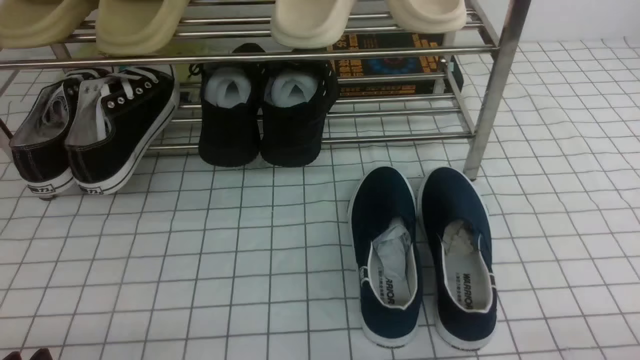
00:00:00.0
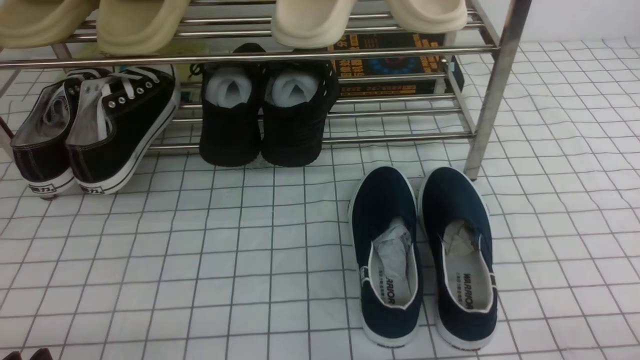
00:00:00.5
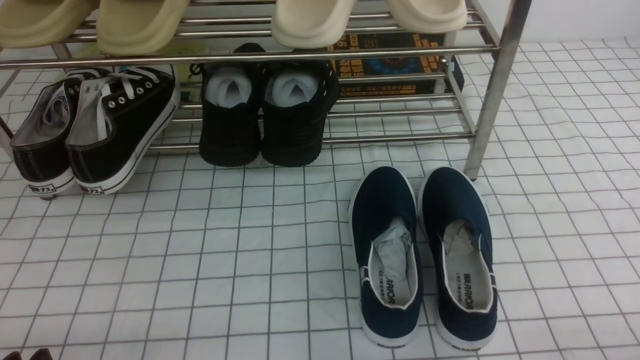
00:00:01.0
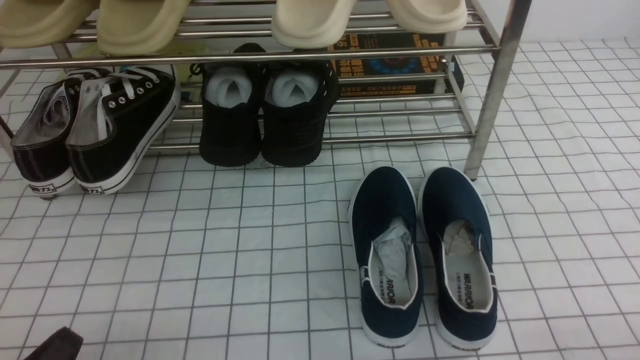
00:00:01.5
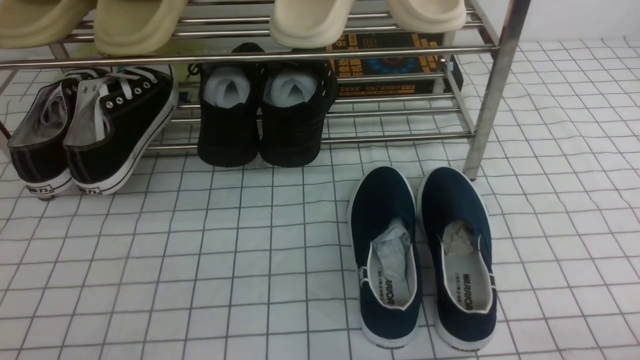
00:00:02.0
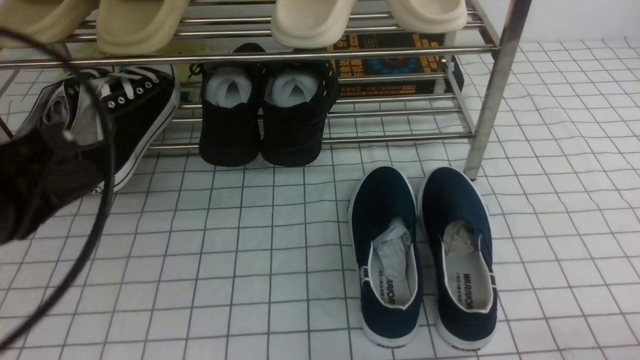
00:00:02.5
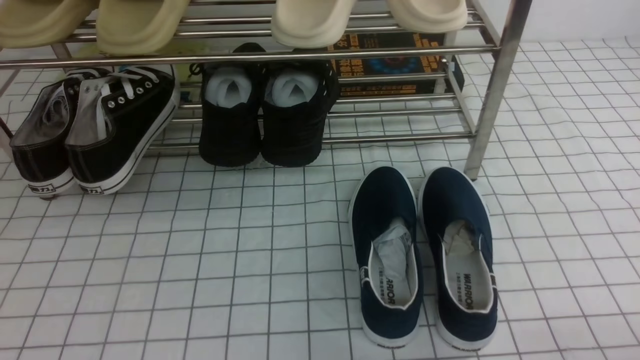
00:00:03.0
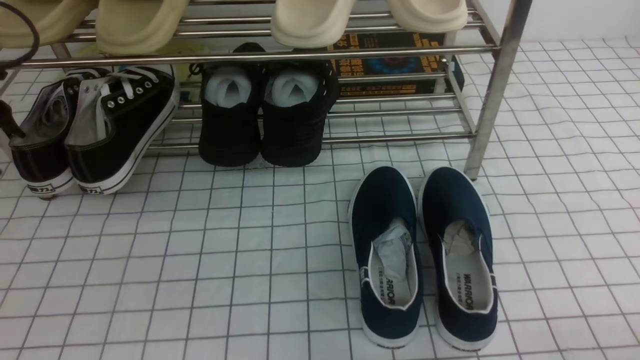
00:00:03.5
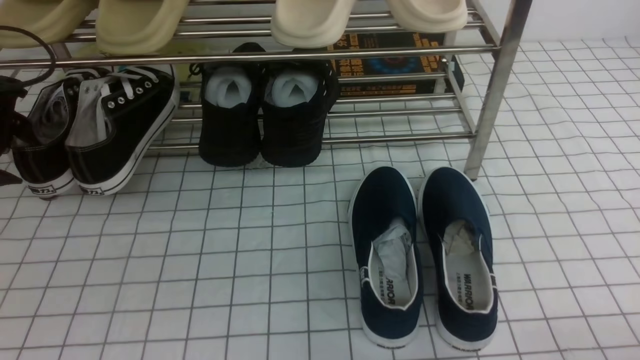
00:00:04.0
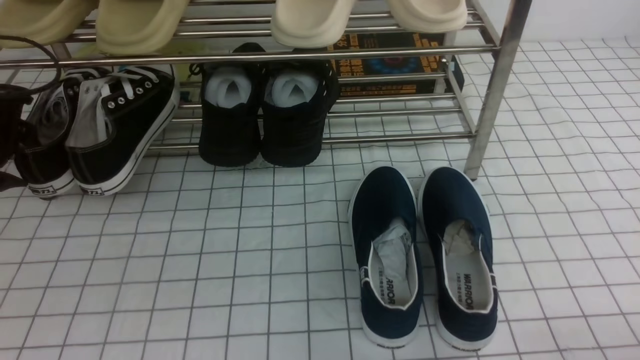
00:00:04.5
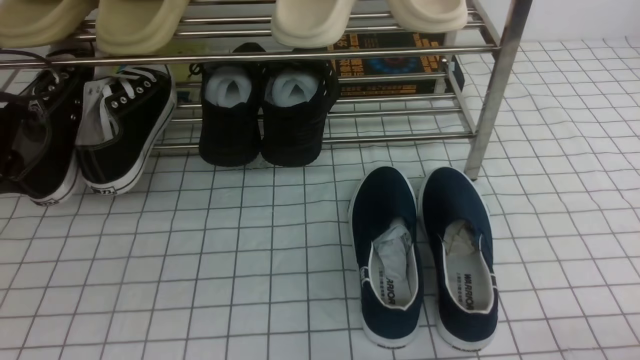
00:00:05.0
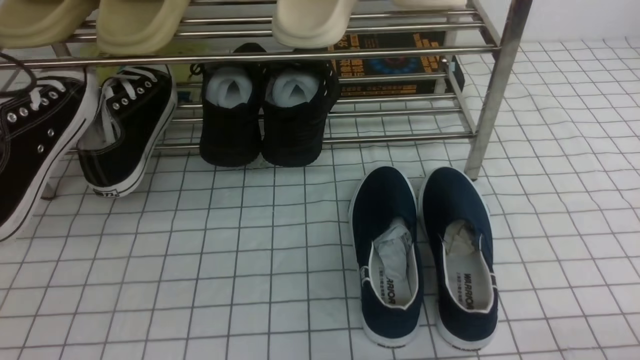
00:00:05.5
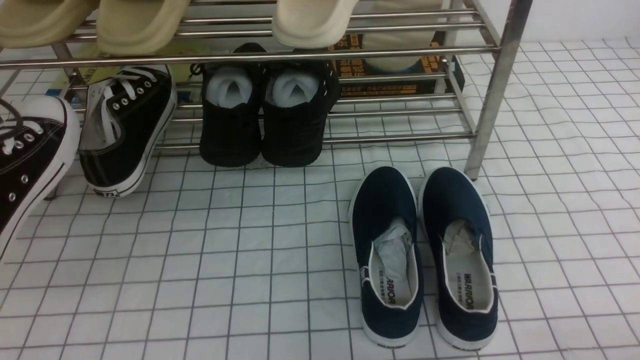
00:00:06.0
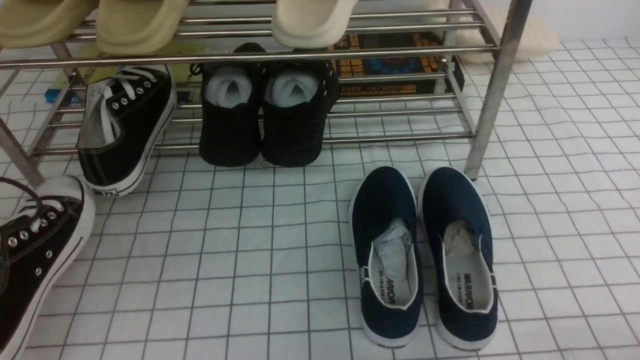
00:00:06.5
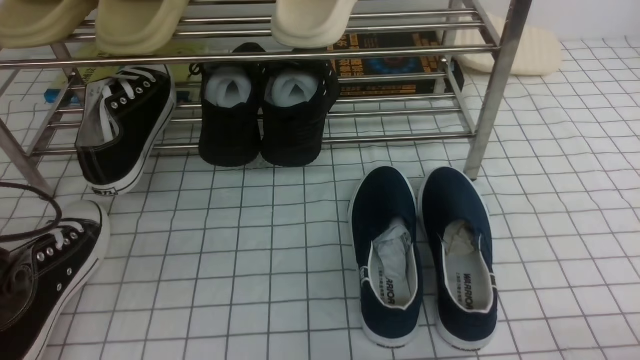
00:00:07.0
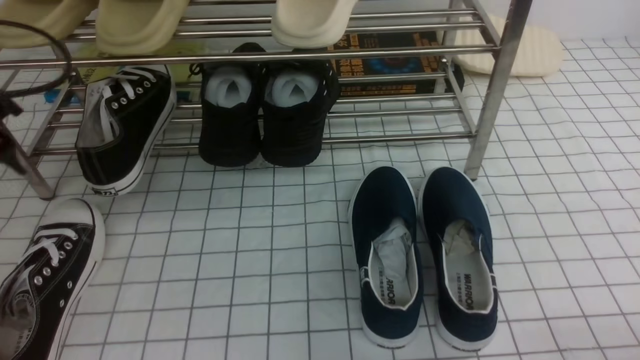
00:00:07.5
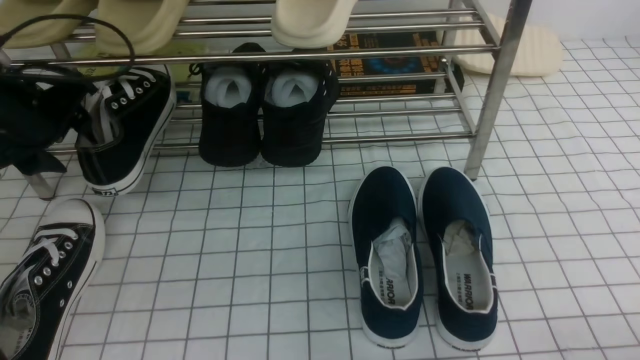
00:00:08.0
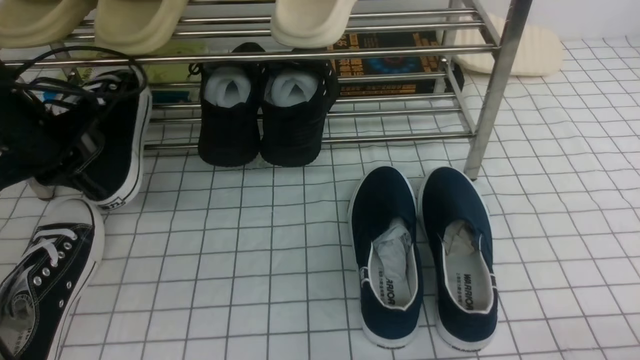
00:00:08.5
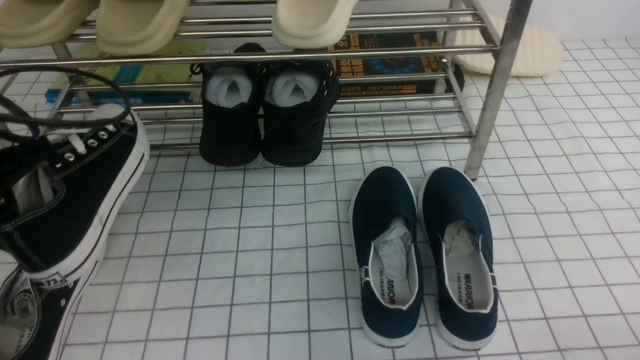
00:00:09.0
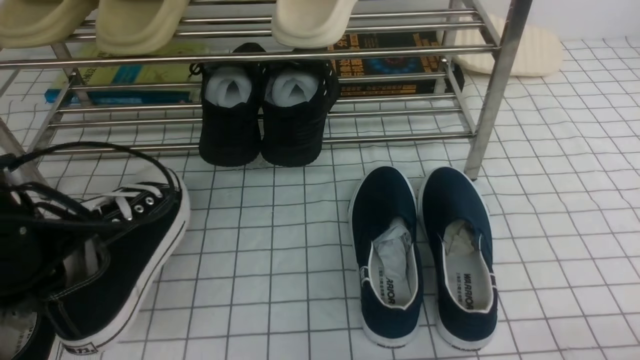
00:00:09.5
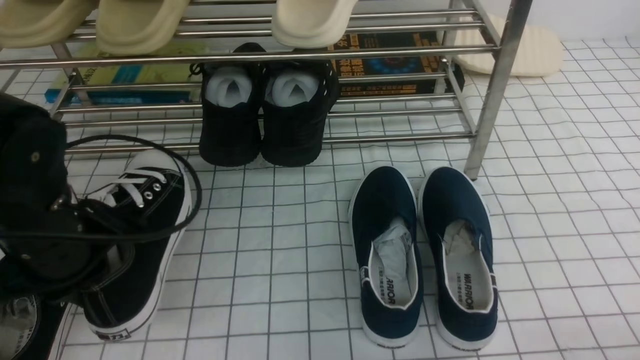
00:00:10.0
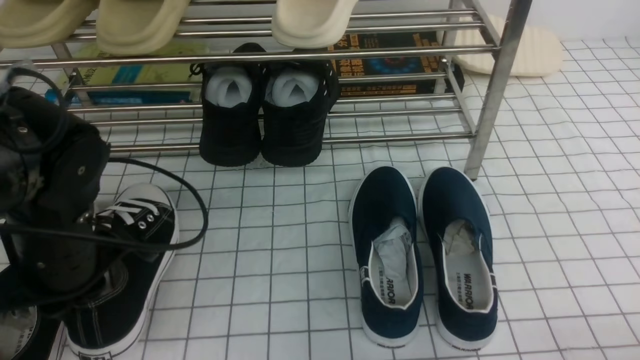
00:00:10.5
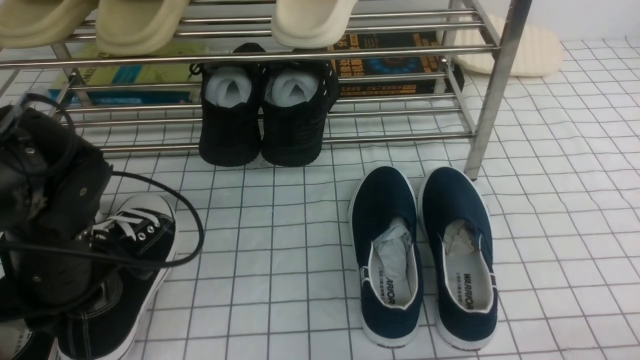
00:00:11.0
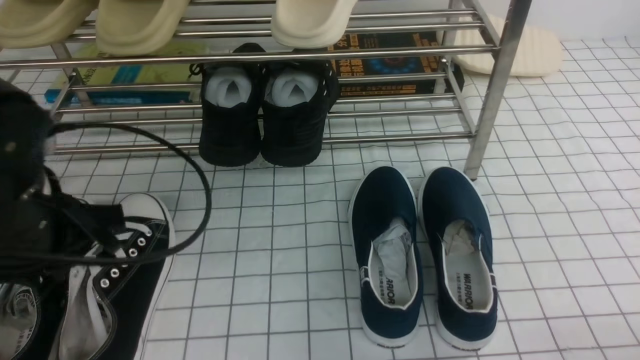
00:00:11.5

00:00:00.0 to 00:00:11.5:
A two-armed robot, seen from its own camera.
Step, 00:00:00.0 to 00:00:04.5: use the left arm to clamp a shoe on the left side of the shoe rack.
Step, 00:00:05.0 to 00:00:07.0: Use your left arm to remove the clamped shoe from the shoe rack and put it down.
Step, 00:00:07.5 to 00:00:08.0: use the left arm to clamp a shoe on the left side of the shoe rack.
00:00:02.0 to 00:00:04.0: The left gripper is displaced forward by some 30 cm, and opens.
00:00:04.0 to 00:00:06.0: The left gripper shifts roughly 15 cm backward, and closes up.
00:00:06.0 to 00:00:07.5: The left gripper heads forward, covering about 10 cm, and opens.
00:00:07.5 to 00:00:09.5: The left gripper moves to the right and backward, some 10 cm, and closes its fingers.
00:00:09.5 to 00:00:11.5: The left gripper shifts by about 5 cm.

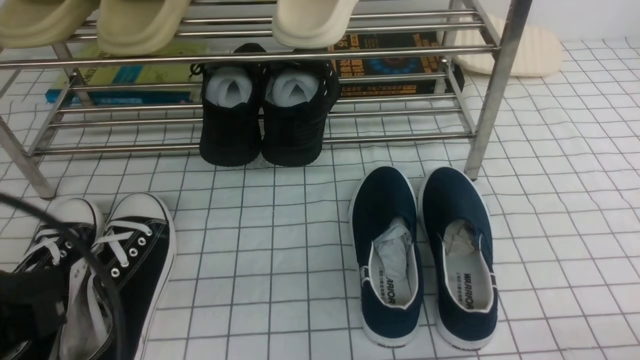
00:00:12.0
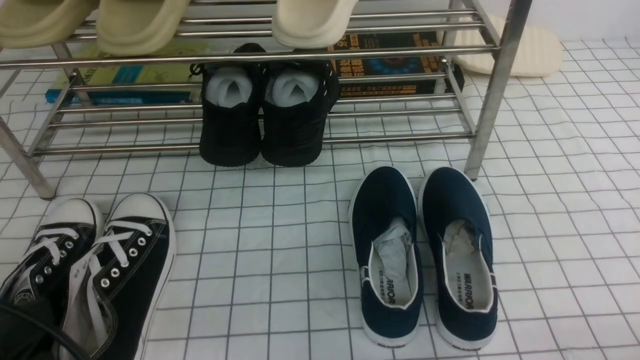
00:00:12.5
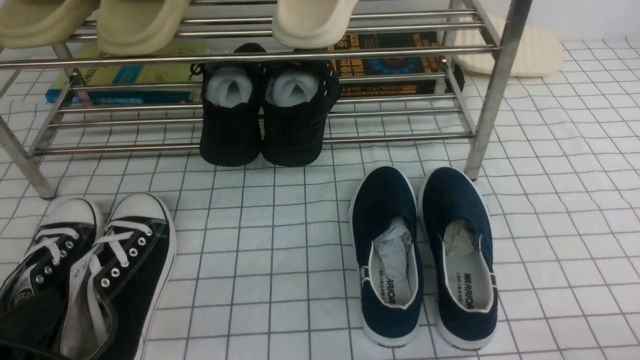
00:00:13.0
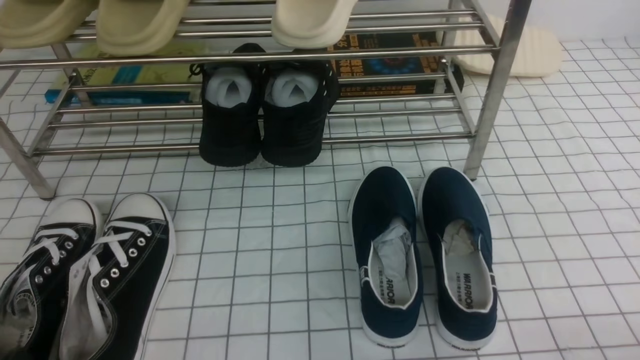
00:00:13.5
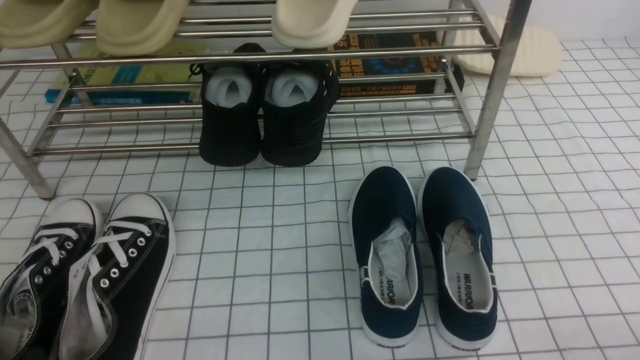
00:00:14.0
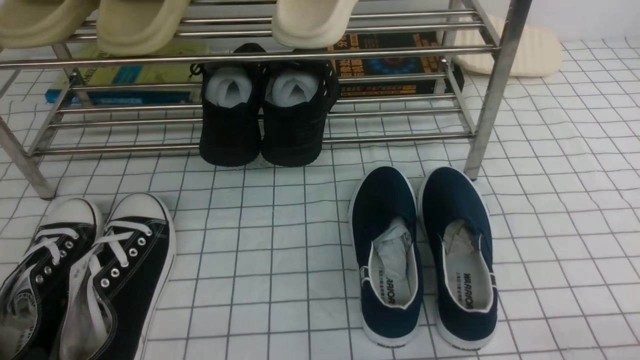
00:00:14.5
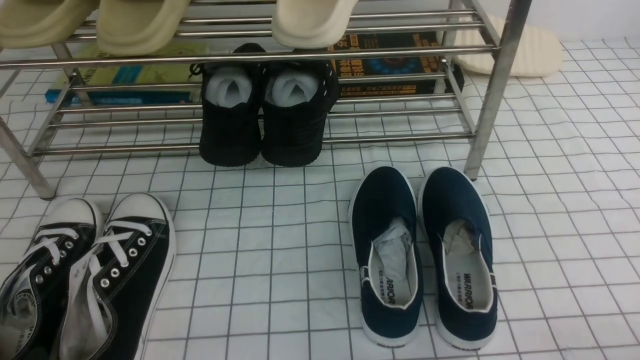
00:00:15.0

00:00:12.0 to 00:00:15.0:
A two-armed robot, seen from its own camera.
00:00:12.0 to 00:00:13.5: The left gripper is displaced downward by roughly 15 cm.
00:00:13.5 to 00:00:15.0: Neither gripper changes place.

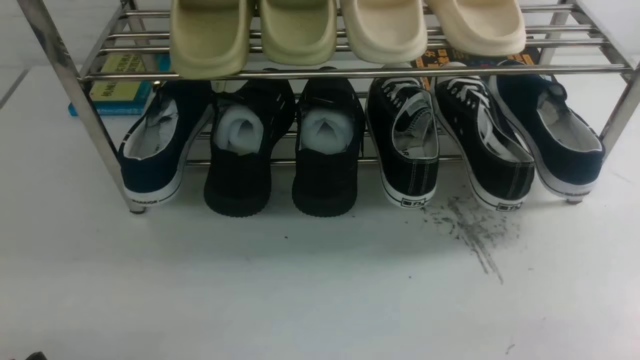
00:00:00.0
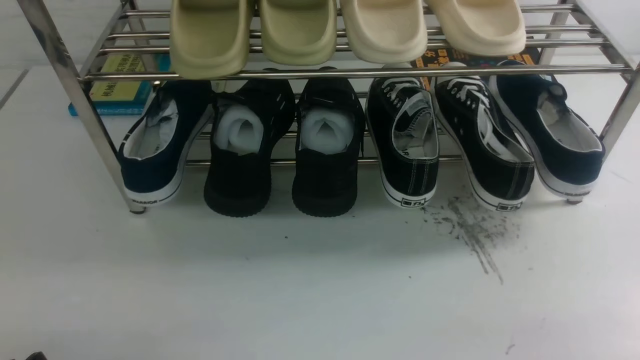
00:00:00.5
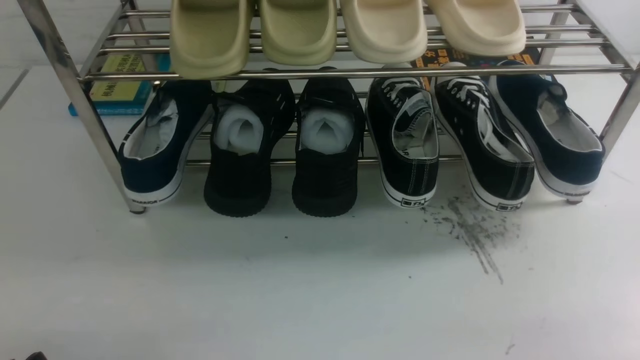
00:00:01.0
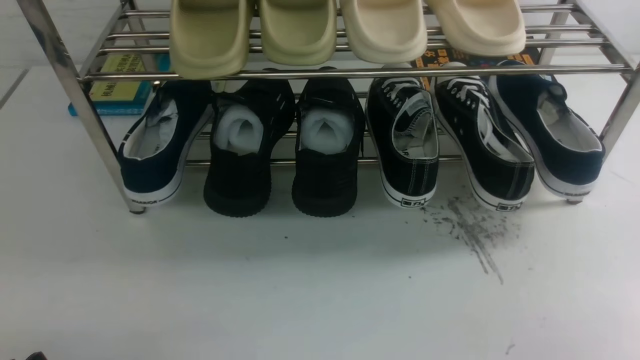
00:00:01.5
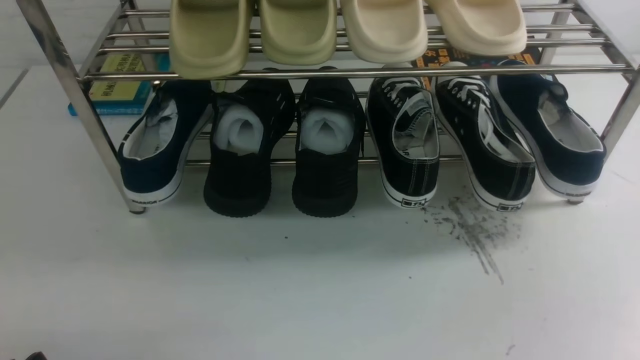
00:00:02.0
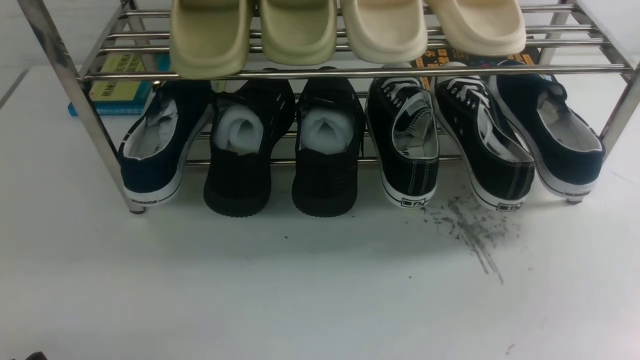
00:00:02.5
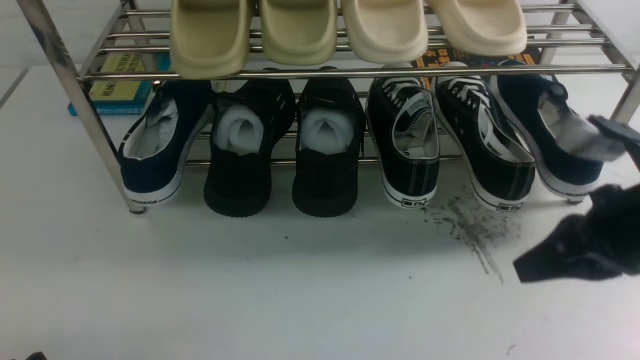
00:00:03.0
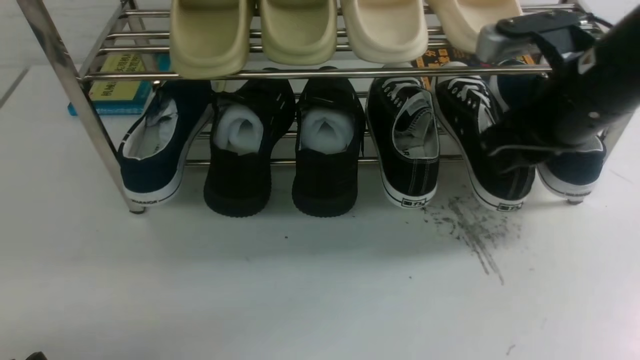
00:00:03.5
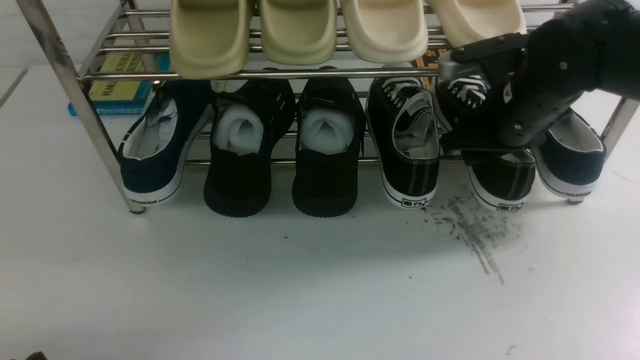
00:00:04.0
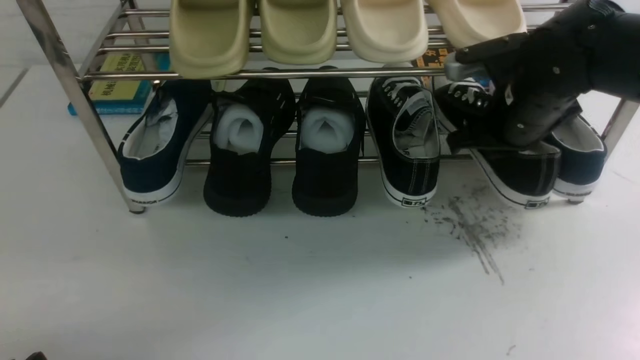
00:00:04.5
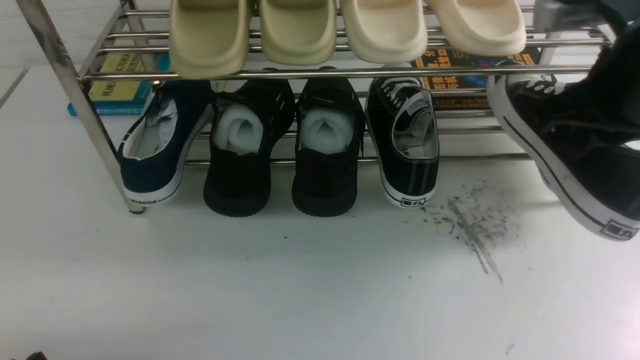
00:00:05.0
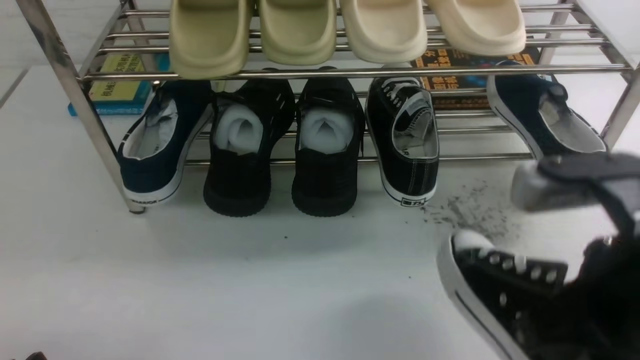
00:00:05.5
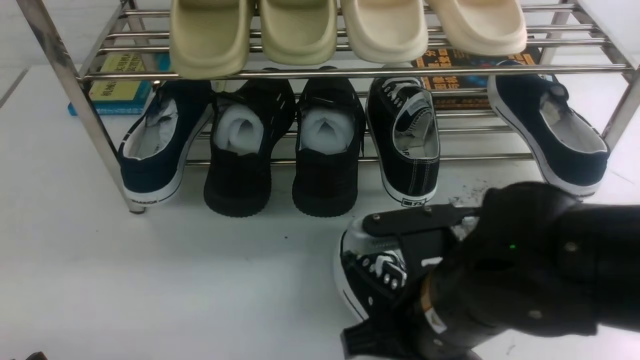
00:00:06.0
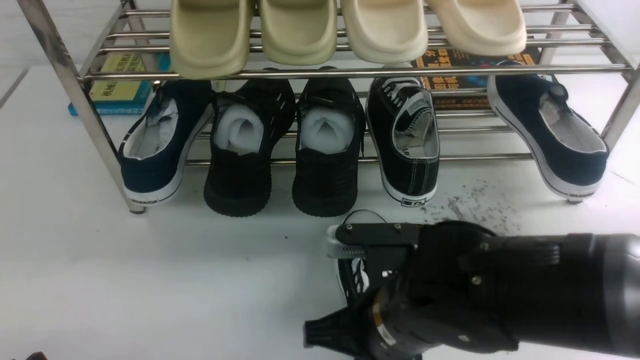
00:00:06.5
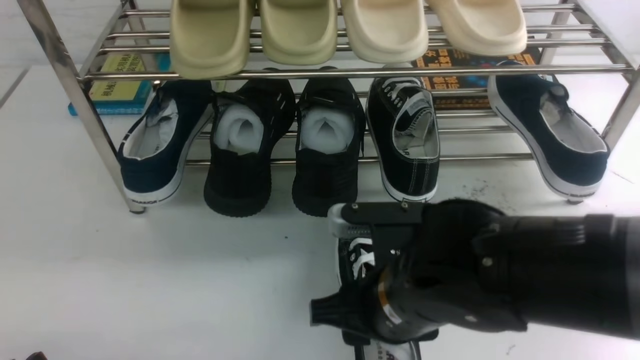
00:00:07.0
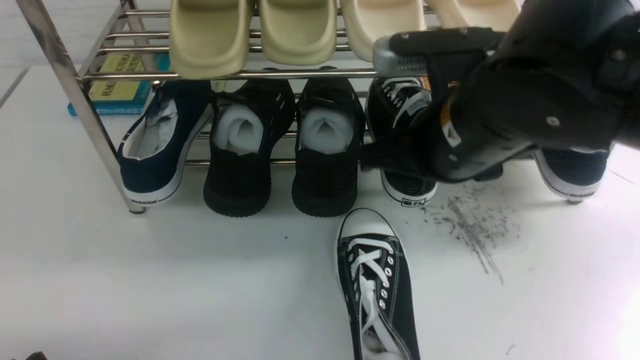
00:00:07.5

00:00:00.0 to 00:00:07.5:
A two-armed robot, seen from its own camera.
Step, 00:00:00.0 to 00:00:04.5: use the right arm to clamp a shoe on the right side of the shoe rack.
Step, 00:00:05.0 to 00:00:07.0: use the right arm to take out the clamped shoe from the shoe rack and put it down.
00:00:02.0 to 00:00:04.0: The right gripper moves forward and to the left, about 35 cm, and opens up.
00:00:04.0 to 00:00:05.5: The right gripper is displaced backward by approximately 20 cm, and closes up.
00:00:05.5 to 00:00:07.5: The right gripper goes approximately 15 cm forward and to the left, reaches about 15 cm downward, then returns, and opens up.
